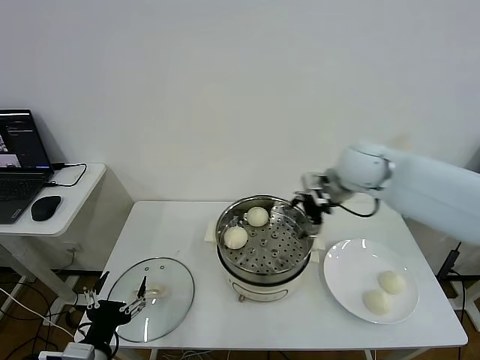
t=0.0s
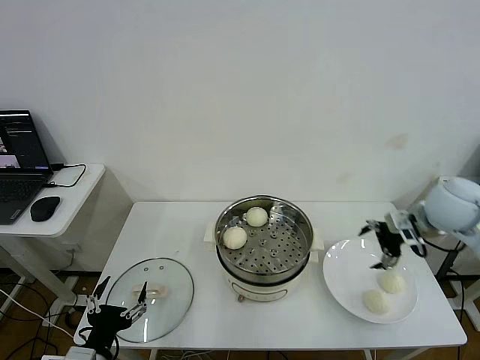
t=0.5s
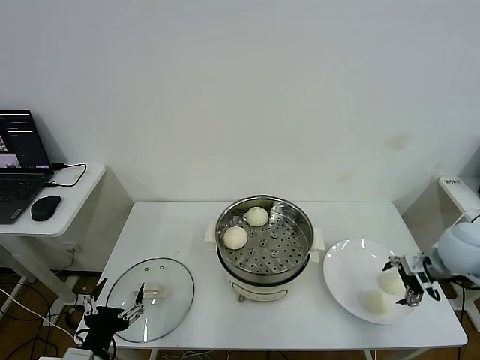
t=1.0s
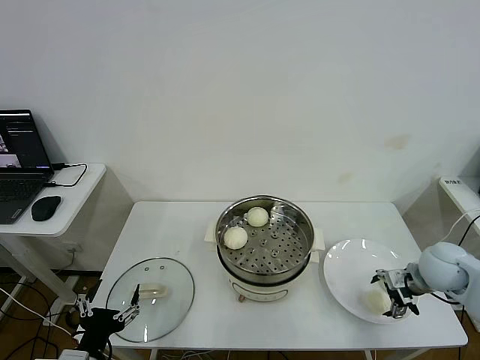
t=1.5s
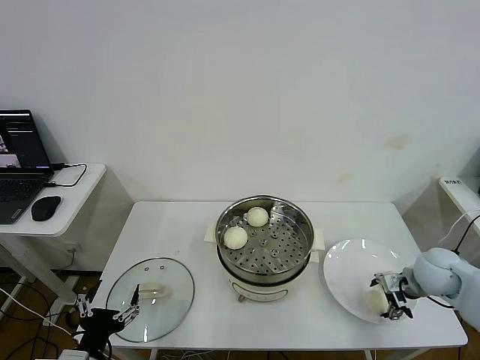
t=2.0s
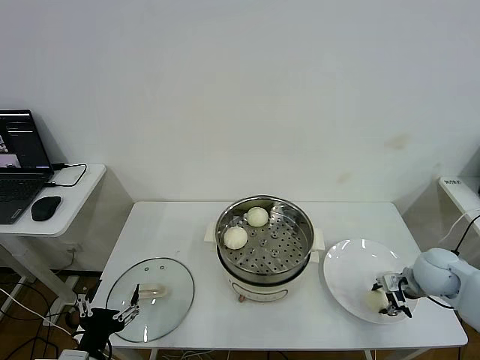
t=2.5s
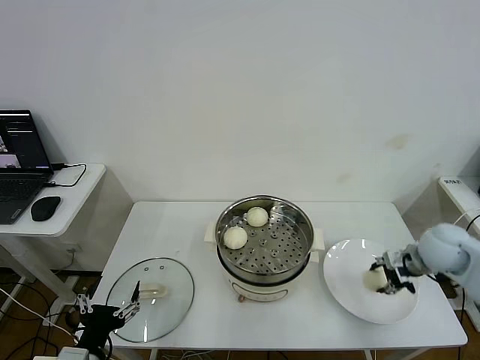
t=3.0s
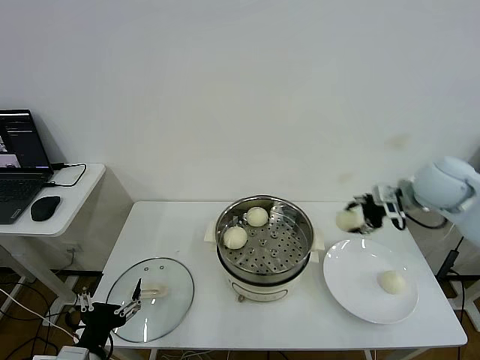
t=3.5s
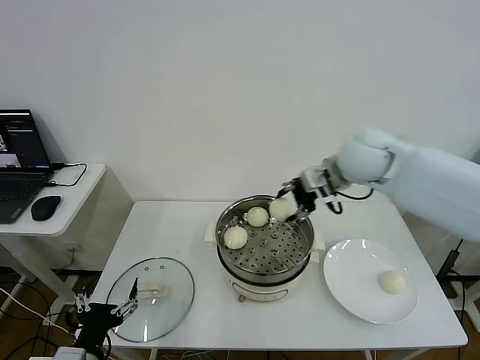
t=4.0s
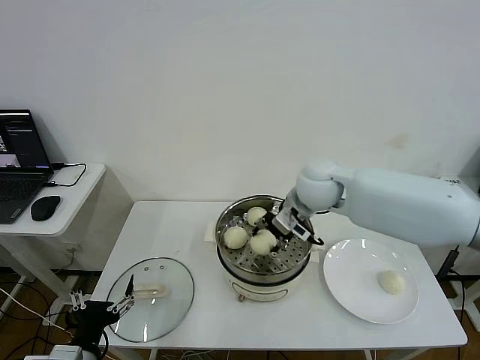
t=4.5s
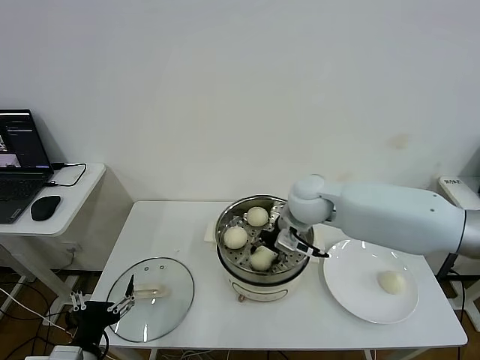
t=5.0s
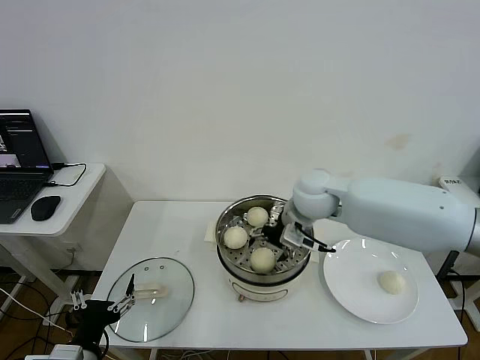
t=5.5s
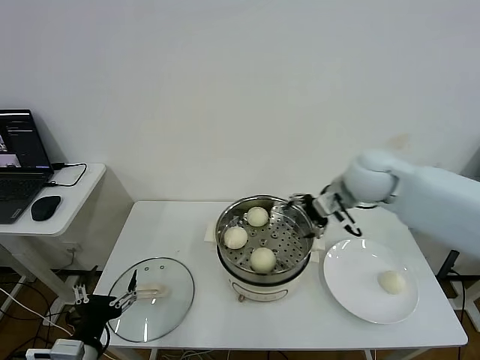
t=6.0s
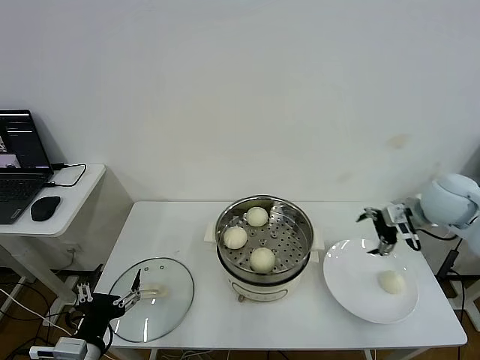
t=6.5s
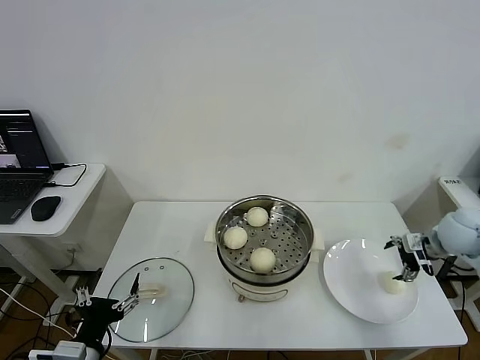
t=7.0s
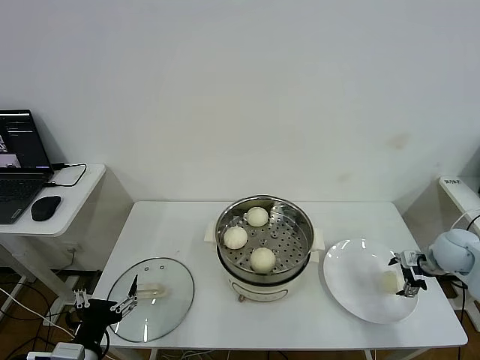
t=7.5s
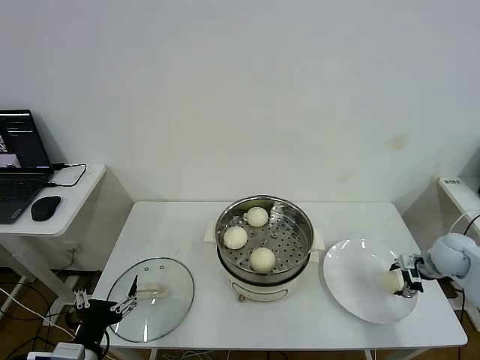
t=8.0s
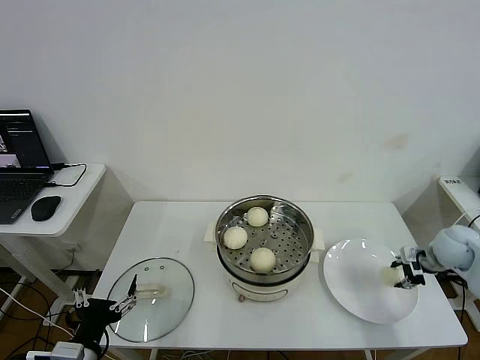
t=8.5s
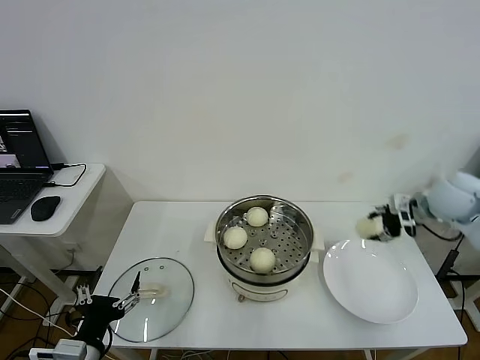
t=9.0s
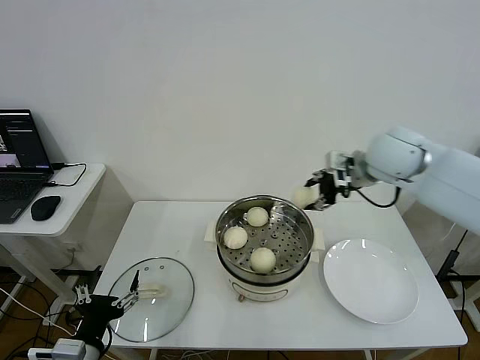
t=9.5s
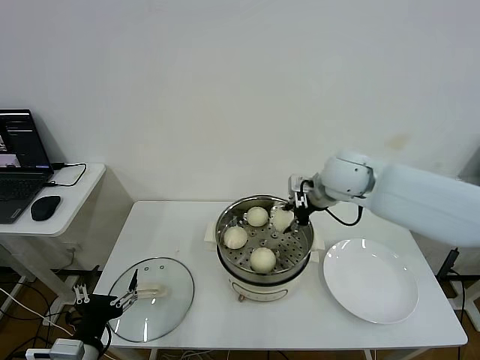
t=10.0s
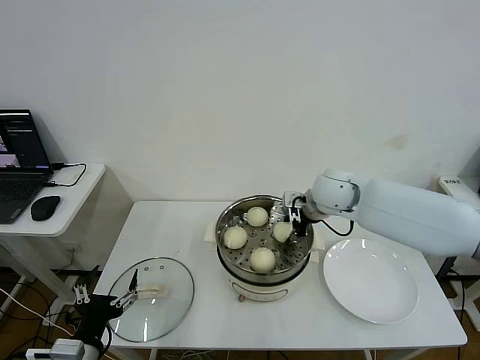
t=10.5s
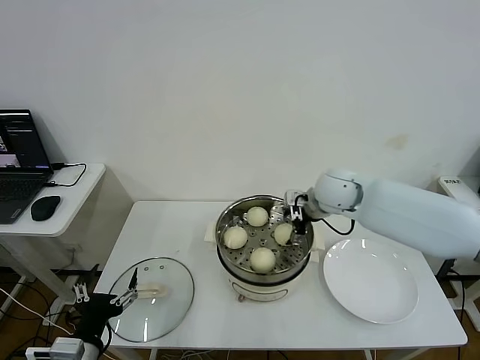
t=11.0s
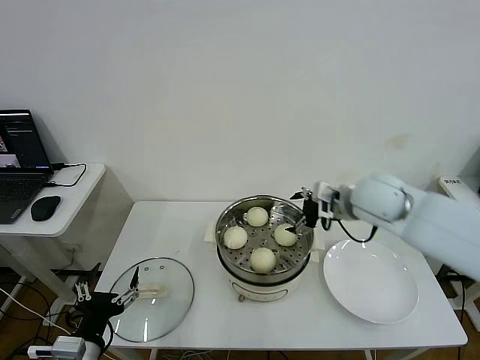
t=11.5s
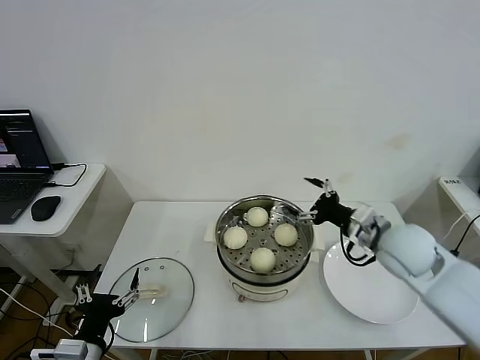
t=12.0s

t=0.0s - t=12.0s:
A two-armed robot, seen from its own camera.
Step, t=0.0s - t=2.0s: Grasp the baozi in the plate with right gripper.
Step, t=2.5s - t=5.0s: Place the baozi on the steamer with right gripper.
Step, t=5.5s - t=8.0s: Grasp the baozi in the plate with right gripper.
Step, t=8.5s - t=10.5s: Place the baozi on the steamer with right gripper.
t=0.0s - t=2.0s: The right gripper is displaced downward, to the right and backward by about 30 cm.
t=2.0s - t=4.0s: The right gripper is displaced upward, to the left and forward by some 35 cm, and closes its fingers.
t=4.0s - t=6.0s: The right gripper goes to the left and returns, roughly 10 cm each way, and opens its fingers.
t=6.0s - t=8.0s: The right gripper heads to the right and downward, covering roughly 30 cm, and closes.
t=8.0s - t=10.0s: The right gripper travels to the left and upward by some 35 cm, and closes its fingers.
t=10.0s - t=12.0s: The right gripper heads backward, to the right and downward, covering about 15 cm, and opens up.

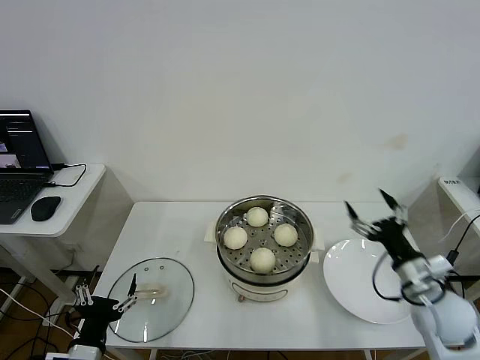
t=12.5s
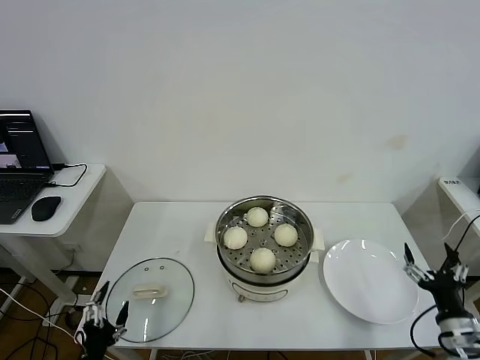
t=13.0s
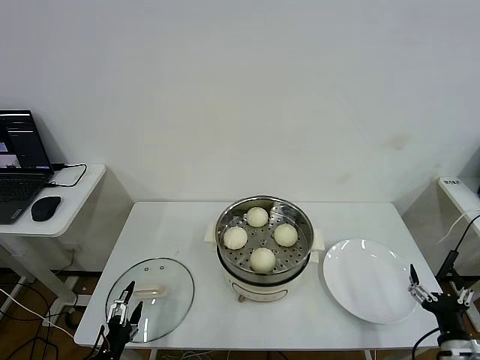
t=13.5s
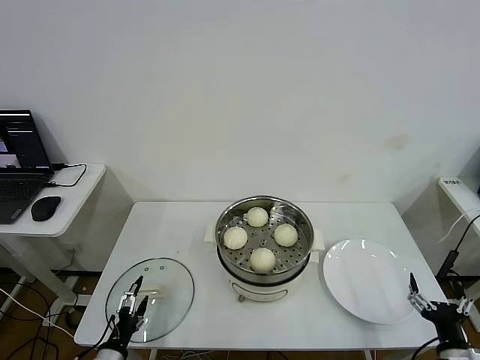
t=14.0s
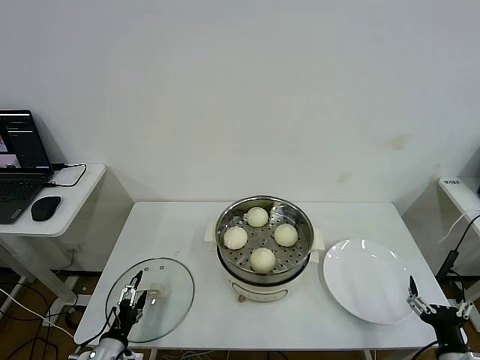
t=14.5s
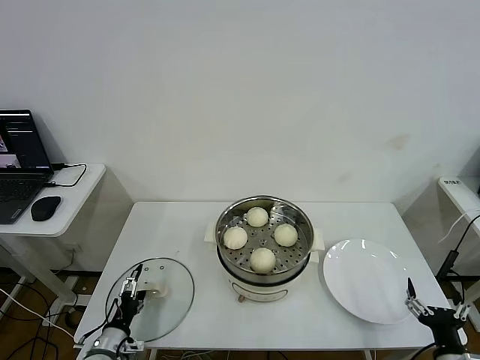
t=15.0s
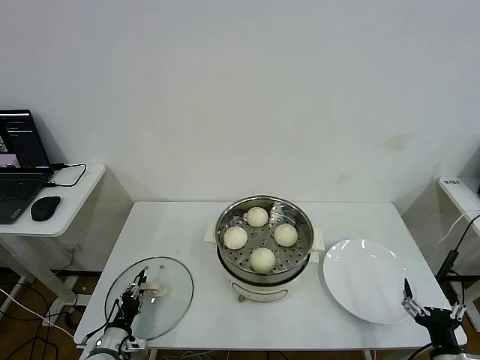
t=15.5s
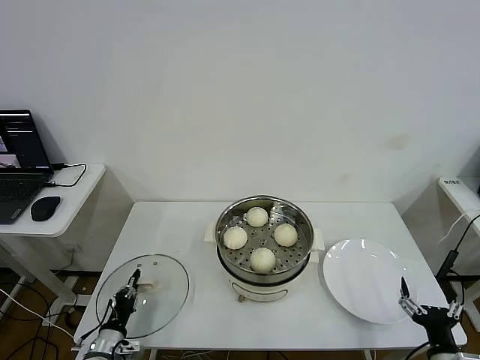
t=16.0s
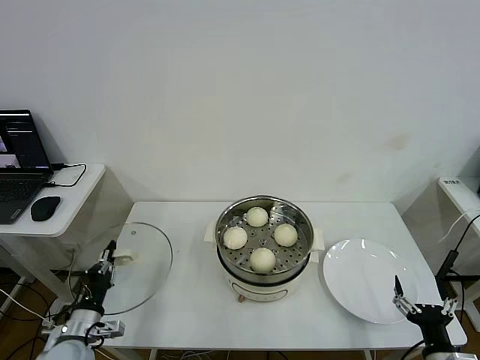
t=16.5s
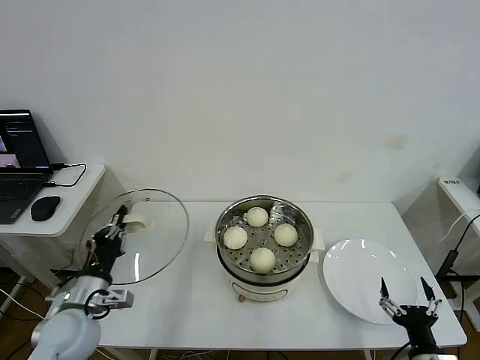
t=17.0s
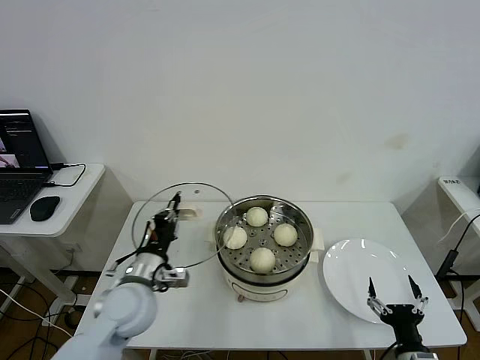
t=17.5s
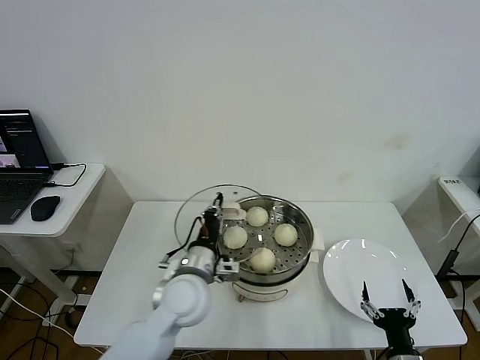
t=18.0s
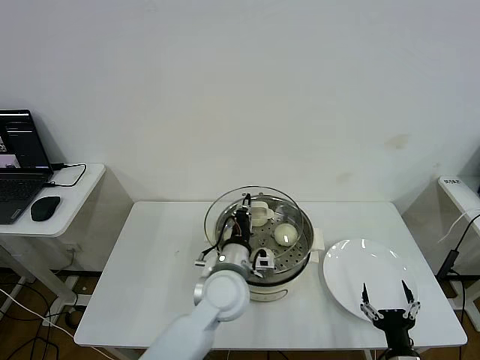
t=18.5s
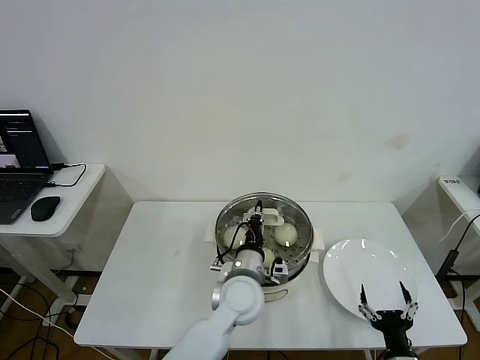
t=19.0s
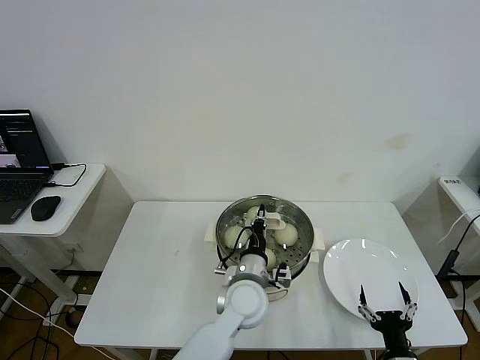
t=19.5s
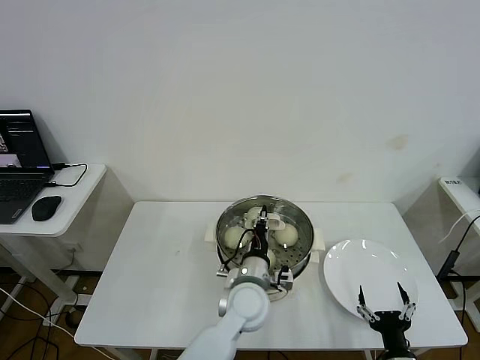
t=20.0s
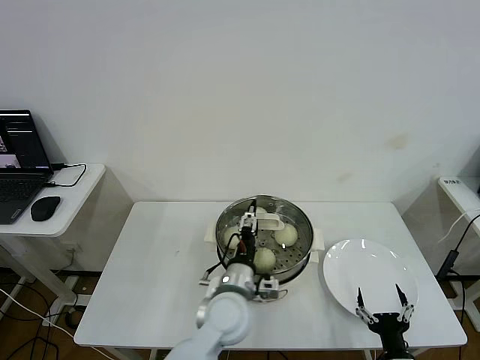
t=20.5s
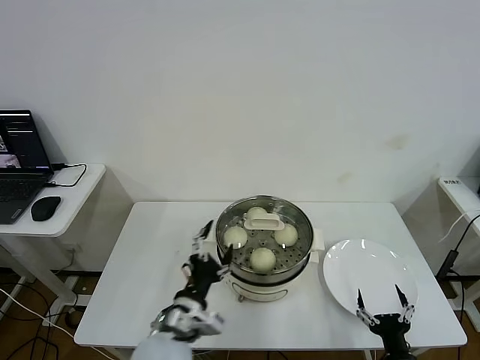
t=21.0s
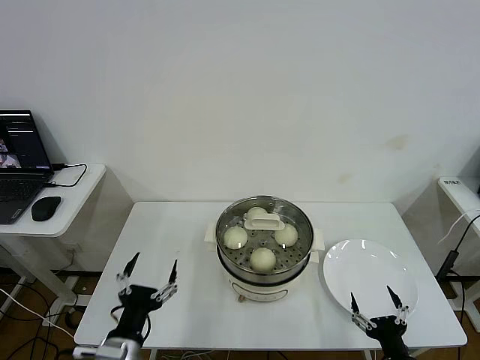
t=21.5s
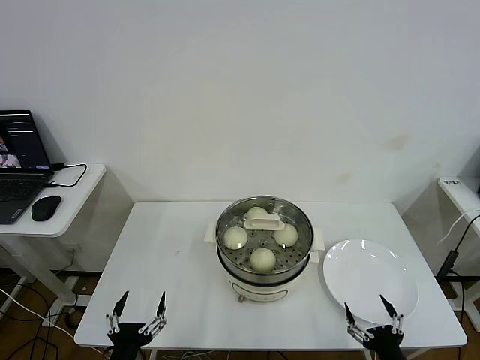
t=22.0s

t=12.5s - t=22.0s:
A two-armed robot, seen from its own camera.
Step, t=12.5s - t=15.5s: Grasp the pot lid with left gripper.
Step, t=16.0s - t=20.0s: Place the pot lid on the steamer with left gripper.
t=12.5s - t=14.5s: The left gripper shifts approximately 10 cm downward; the right gripper shifts some 20 cm backward and downward.
t=14.5s - t=16.5s: The left gripper moves upward, about 5 cm, and closes its fingers.
t=16.5s - t=18.0s: The left gripper travels to the right and upward by about 25 cm. Meanwhile the right gripper goes about 5 cm to the left.
t=18.0s - t=20.0s: The left gripper goes roughly 15 cm to the right and downward.
t=20.0s - t=22.0s: The left gripper shifts approximately 35 cm to the left and backward, and opens its fingers.
